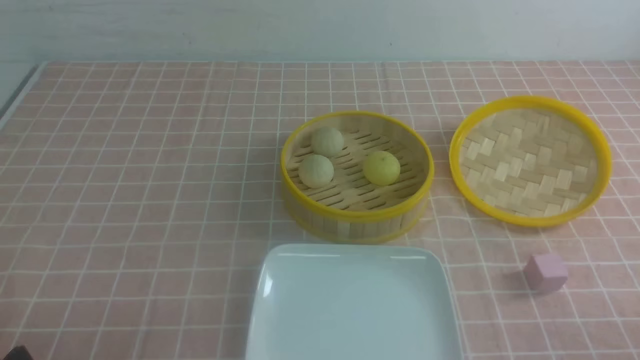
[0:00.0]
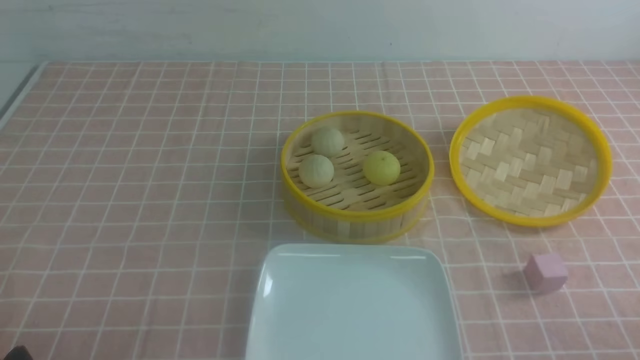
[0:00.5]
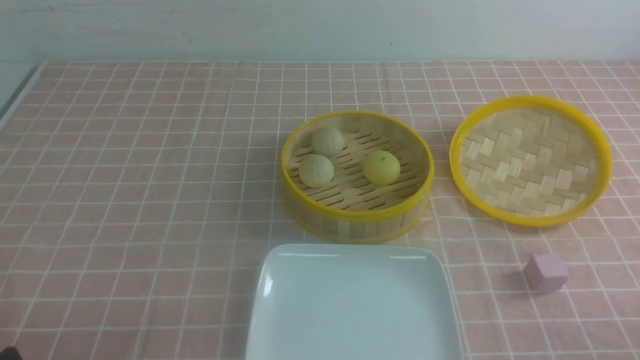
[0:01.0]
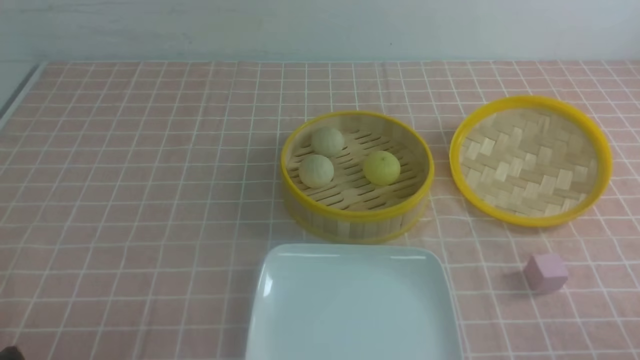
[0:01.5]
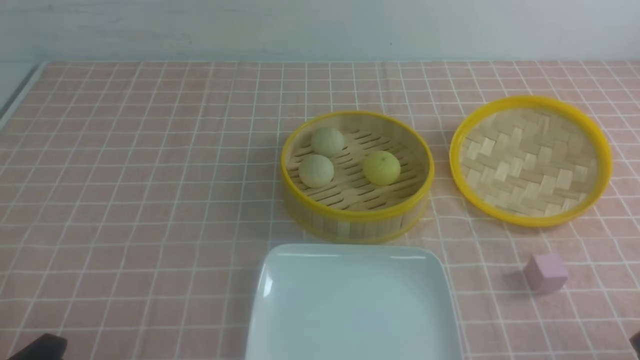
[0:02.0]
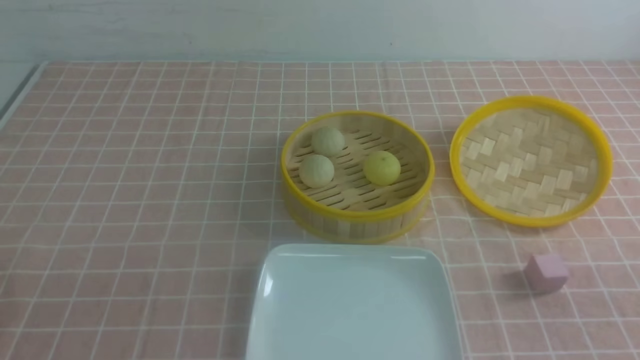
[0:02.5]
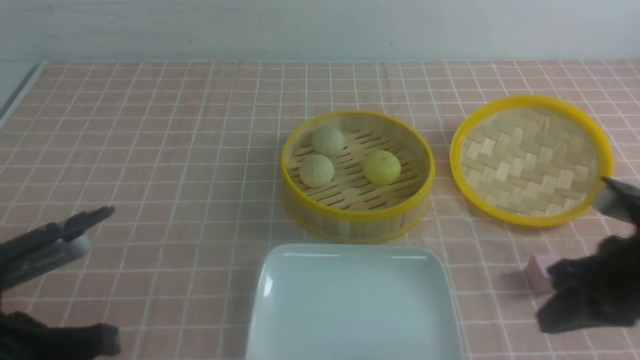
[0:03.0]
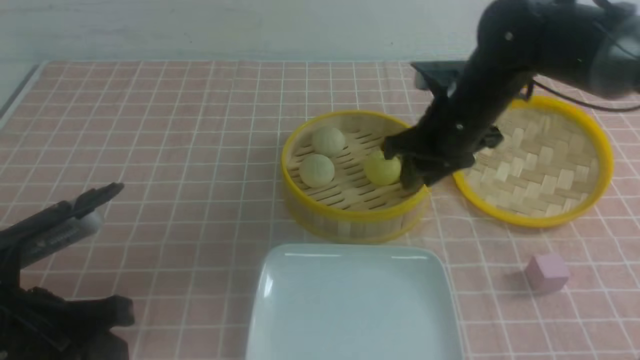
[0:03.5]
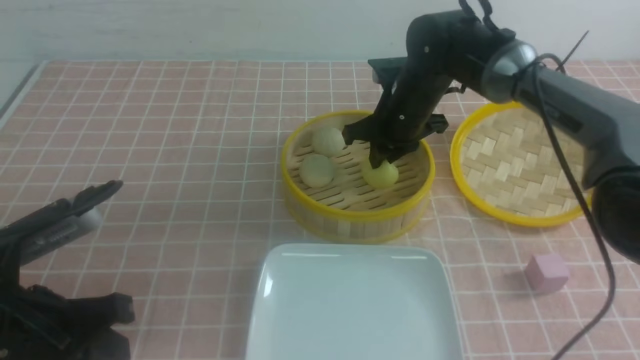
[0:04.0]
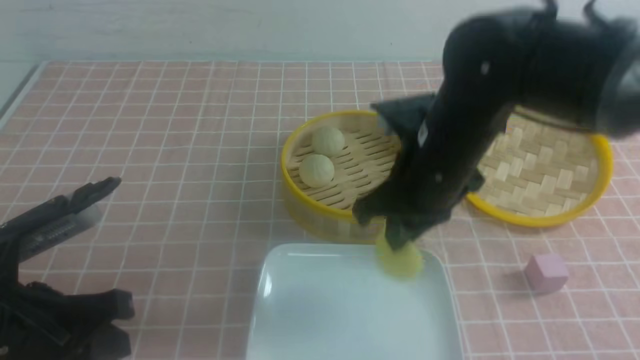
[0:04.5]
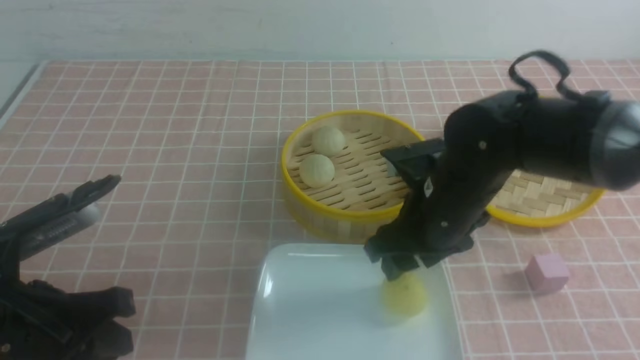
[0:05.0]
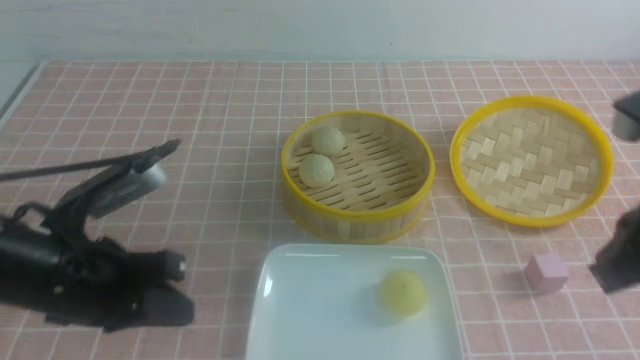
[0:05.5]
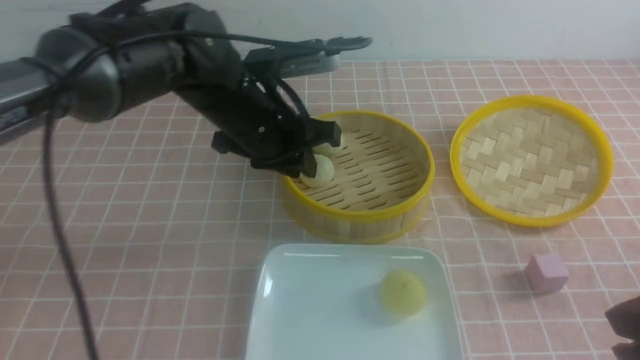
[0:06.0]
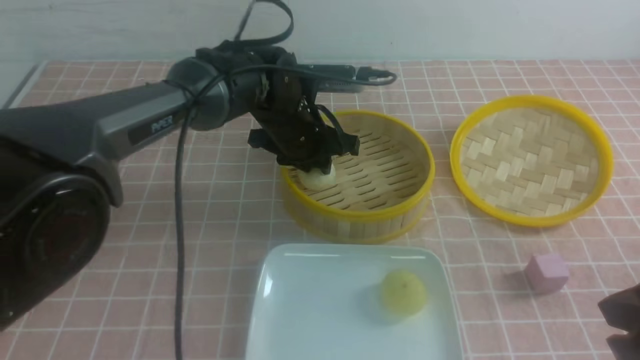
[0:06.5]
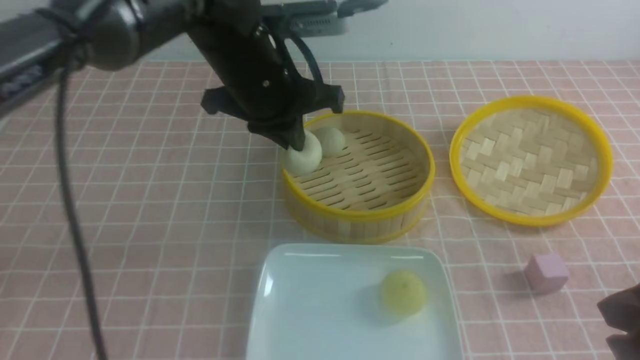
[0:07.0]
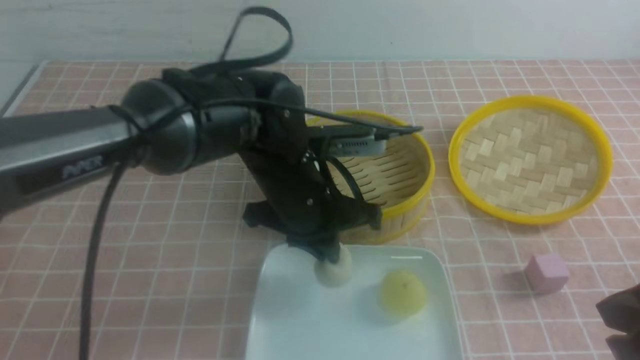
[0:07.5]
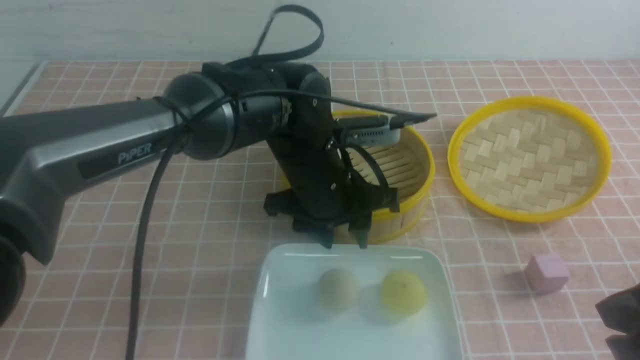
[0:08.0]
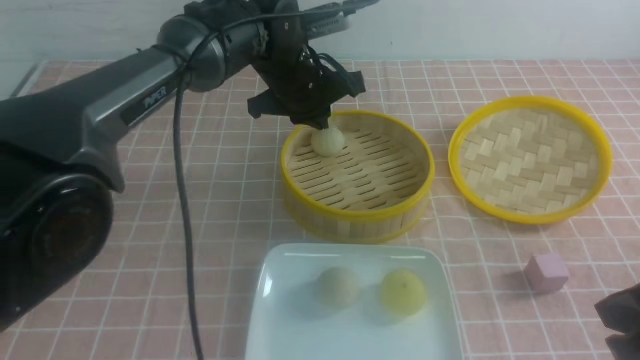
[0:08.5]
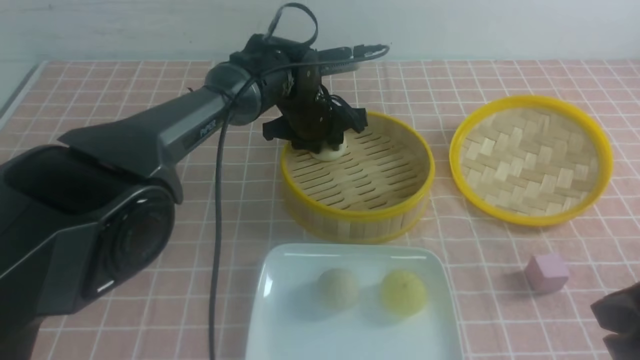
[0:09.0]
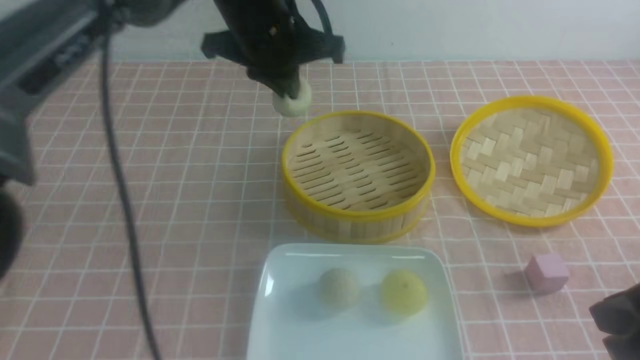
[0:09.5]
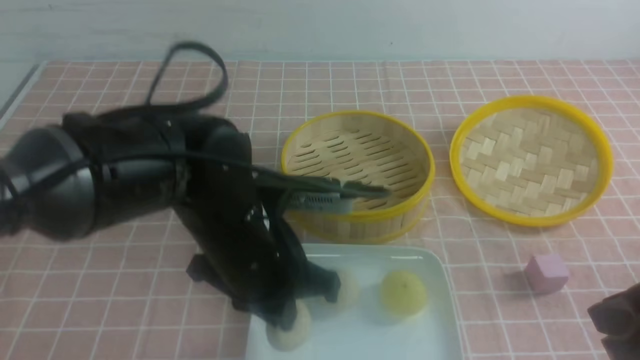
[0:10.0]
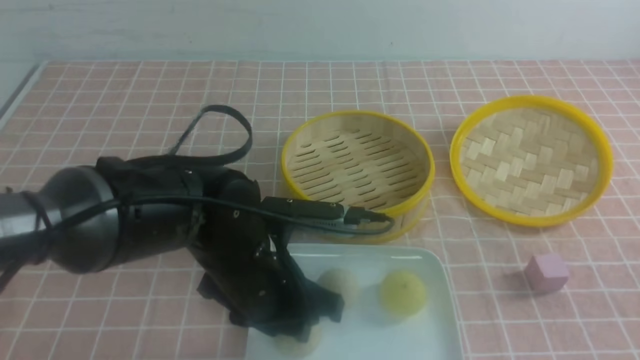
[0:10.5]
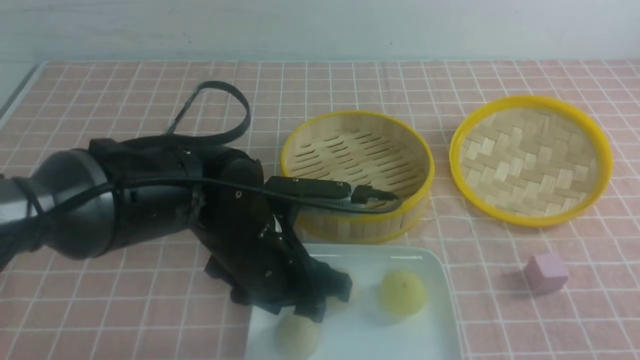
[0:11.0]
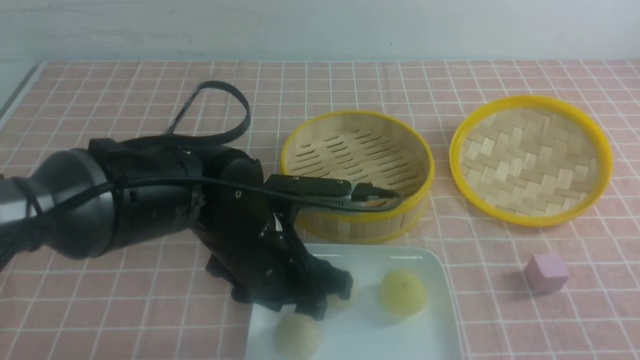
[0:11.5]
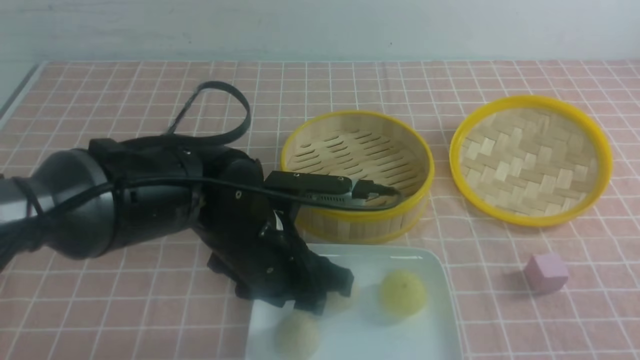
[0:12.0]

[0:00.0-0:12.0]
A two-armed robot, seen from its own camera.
Step, 0:00.0 to 0:04.0: use the right arm to grab the steamed stuffed bun that is closest to it.
Step, 0:05.0 to 0:06.5: use the left arm to grab the steamed stuffed bun that is closest to it.
Step, 0:07.0 to 0:07.5: use the left arm to put the steamed stuffed bun into the plate.
Step, 0:08.0 to 0:09.0: use the left arm to grab the steamed stuffed bun that is closest to it.
Step, 0:09.5 to 0:10.5: use the left arm to put the steamed stuffed bun into the plate.
0:02.0 to 0:04.0: The right gripper shifts some 40 cm forward and to the left, and closes, then reopens, while the left gripper moves forward and upward, roughly 10 cm.
0:04.0 to 0:06.0: The right gripper heads backward and to the right, covering roughly 35 cm, and closes up. The left gripper travels forward and to the right by some 25 cm.
0:06.0 to 0:08.0: The left gripper shifts roughly 5 cm to the right, goes forward and returns, approximately 5 cm each way, and closes, then opens again.
0:08.0 to 0:10.0: The left gripper moves backward and to the left, some 10 cm, and closes.
0:10.0 to 0:12.0: The right gripper travels backward and to the right by about 10 cm. Meanwhile the left gripper opens.

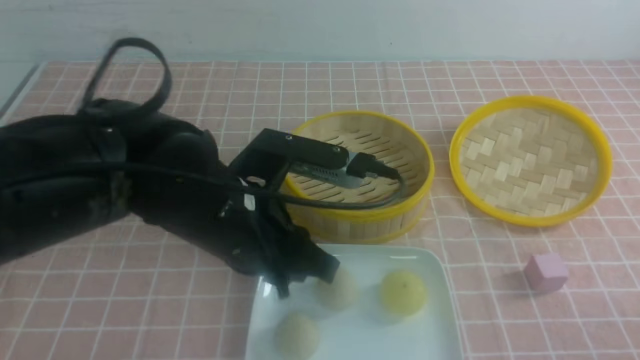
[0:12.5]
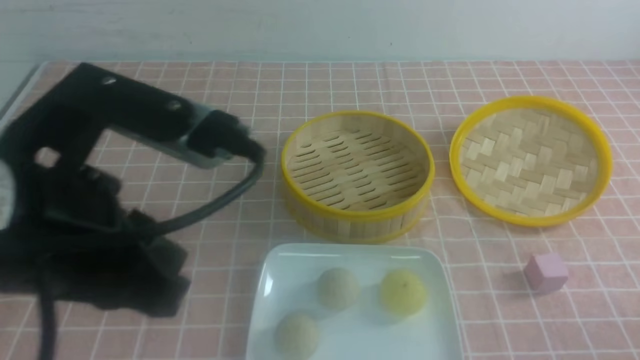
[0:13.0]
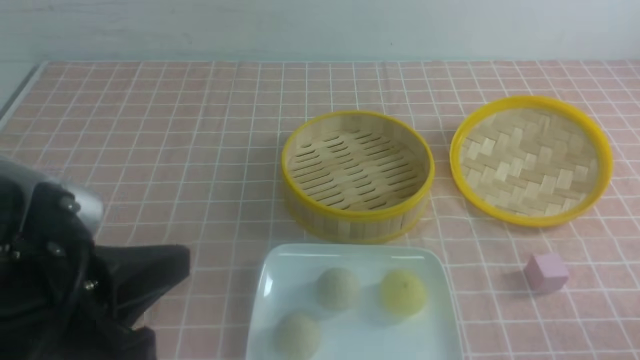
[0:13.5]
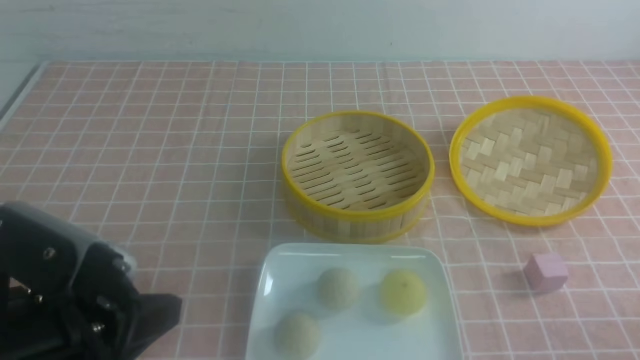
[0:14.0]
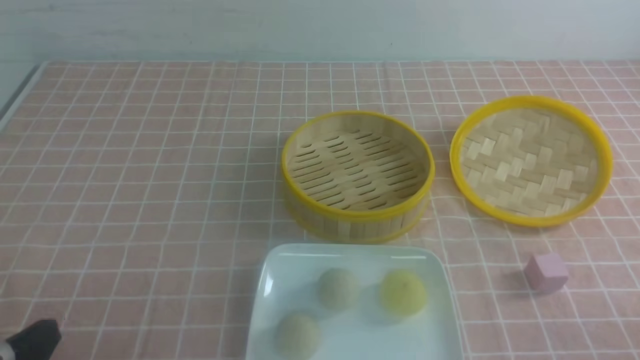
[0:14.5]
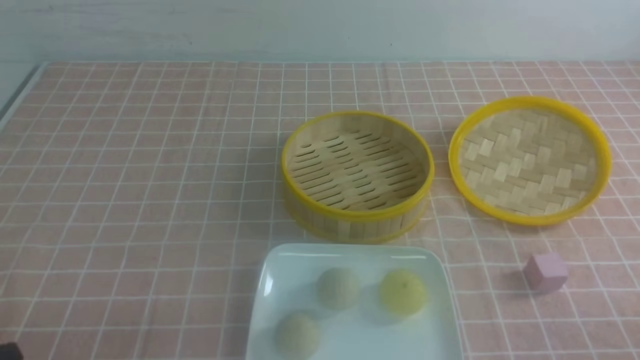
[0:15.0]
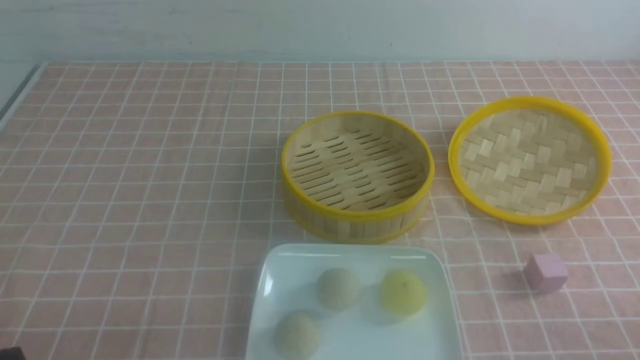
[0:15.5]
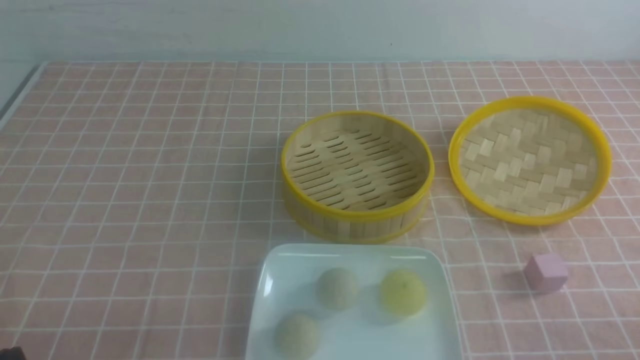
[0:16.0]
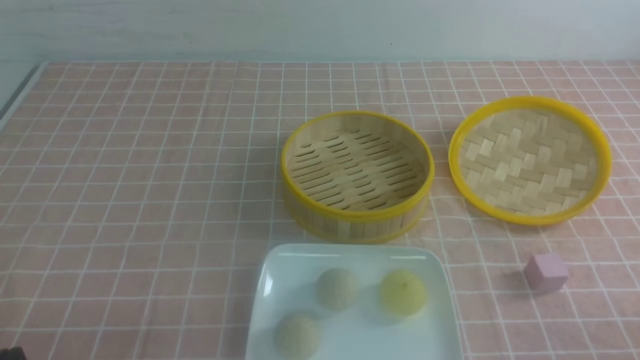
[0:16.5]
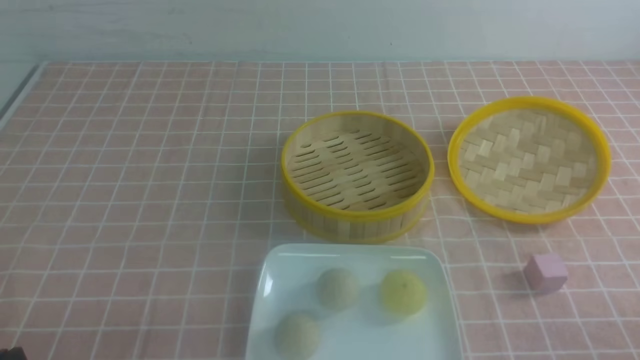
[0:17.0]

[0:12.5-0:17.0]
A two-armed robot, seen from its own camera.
0:12.5 to 0:14.5: The left gripper travels to the left and backward by roughly 25 cm, and closes its fingers.
